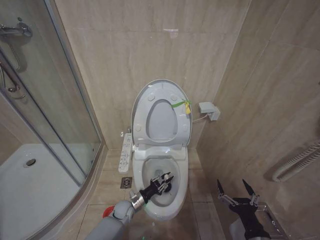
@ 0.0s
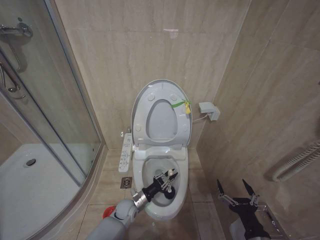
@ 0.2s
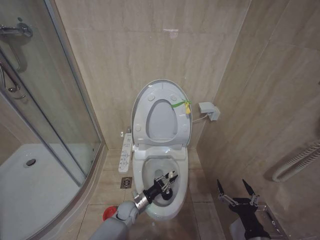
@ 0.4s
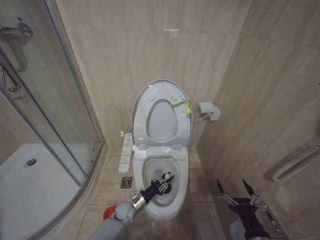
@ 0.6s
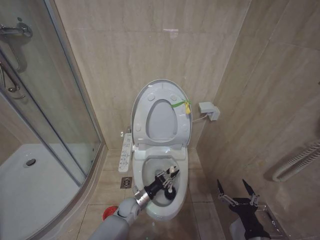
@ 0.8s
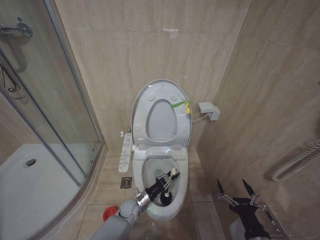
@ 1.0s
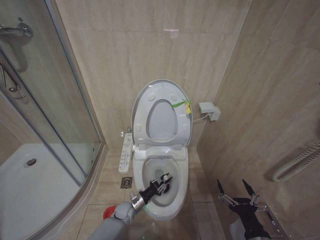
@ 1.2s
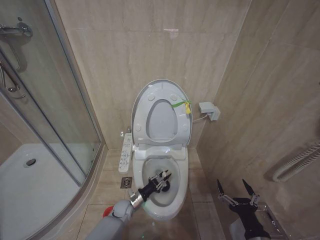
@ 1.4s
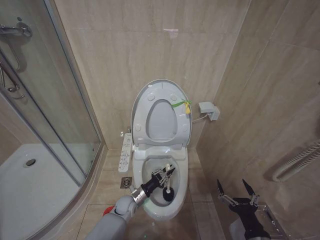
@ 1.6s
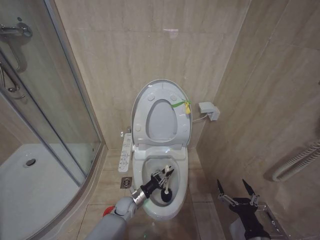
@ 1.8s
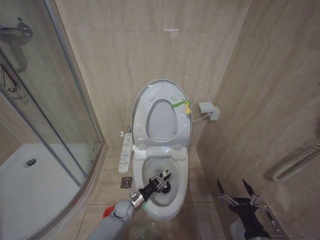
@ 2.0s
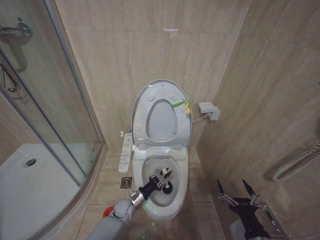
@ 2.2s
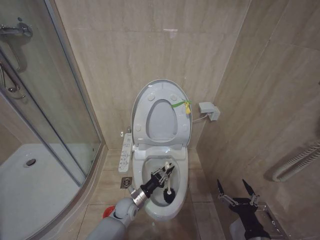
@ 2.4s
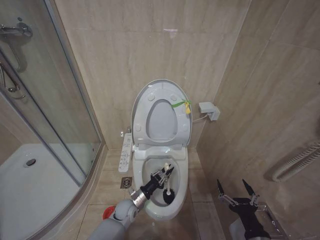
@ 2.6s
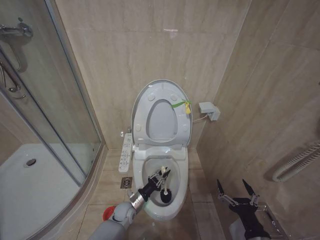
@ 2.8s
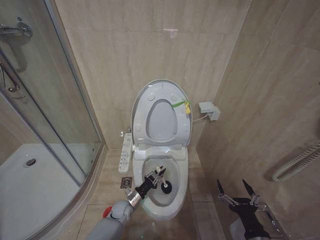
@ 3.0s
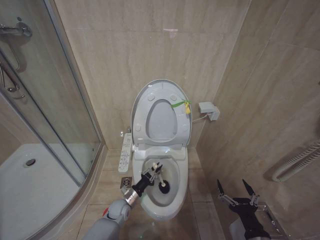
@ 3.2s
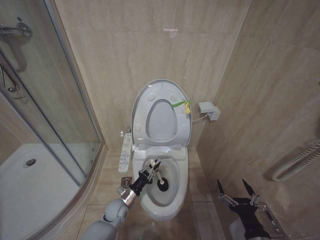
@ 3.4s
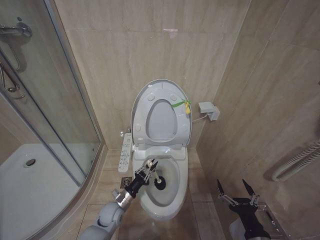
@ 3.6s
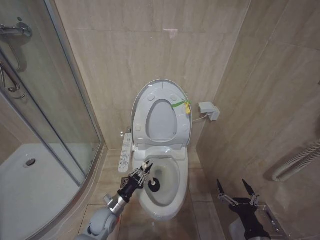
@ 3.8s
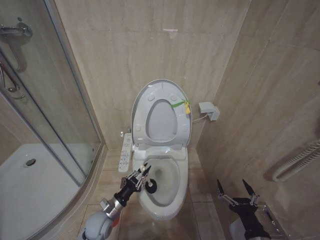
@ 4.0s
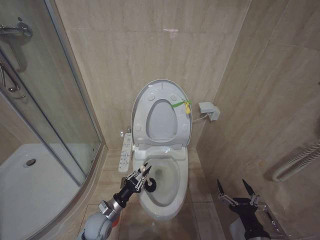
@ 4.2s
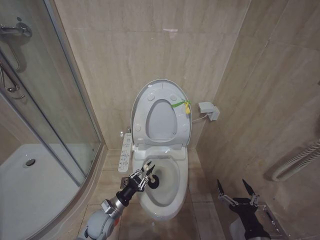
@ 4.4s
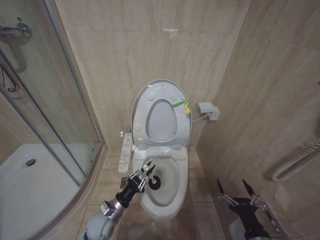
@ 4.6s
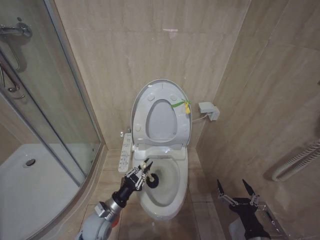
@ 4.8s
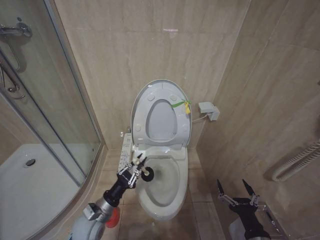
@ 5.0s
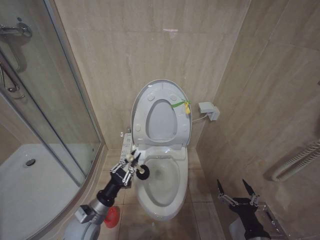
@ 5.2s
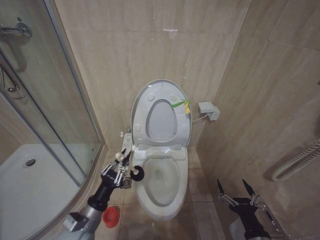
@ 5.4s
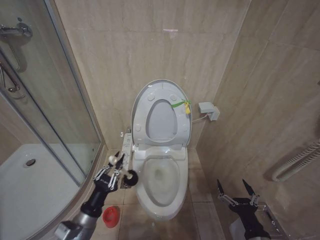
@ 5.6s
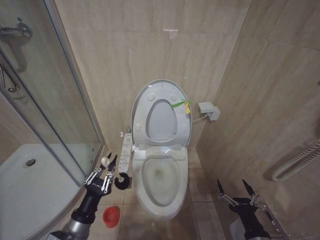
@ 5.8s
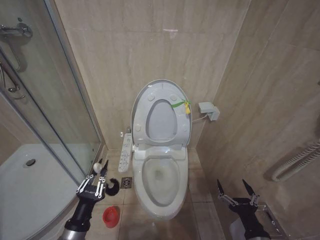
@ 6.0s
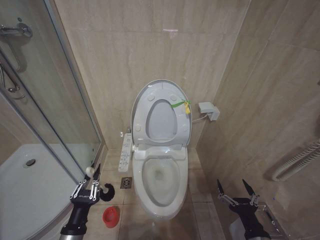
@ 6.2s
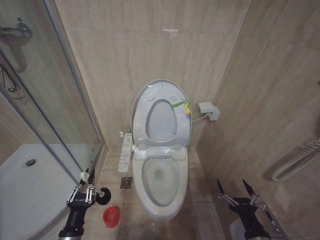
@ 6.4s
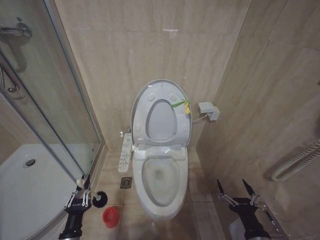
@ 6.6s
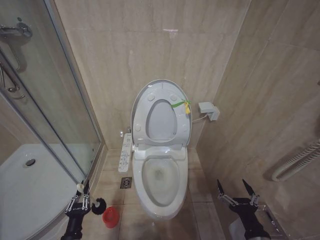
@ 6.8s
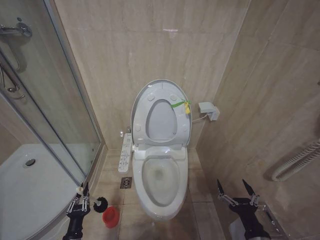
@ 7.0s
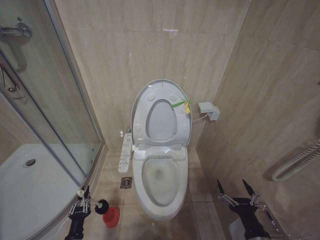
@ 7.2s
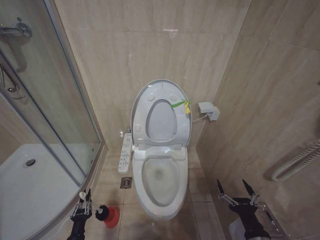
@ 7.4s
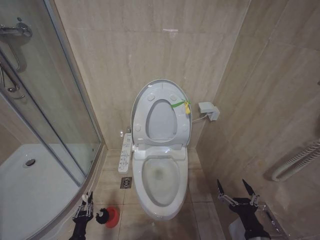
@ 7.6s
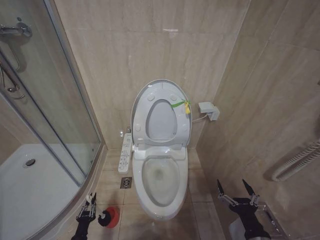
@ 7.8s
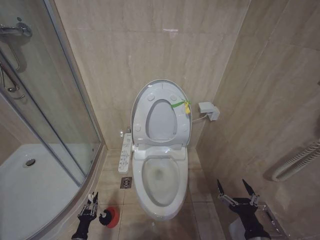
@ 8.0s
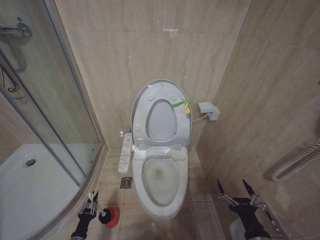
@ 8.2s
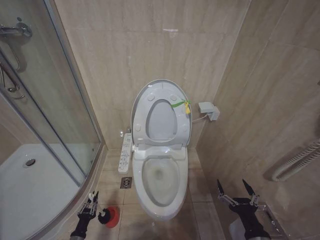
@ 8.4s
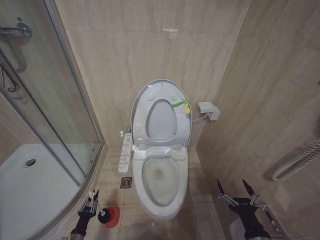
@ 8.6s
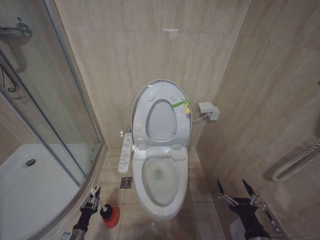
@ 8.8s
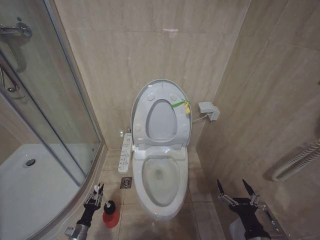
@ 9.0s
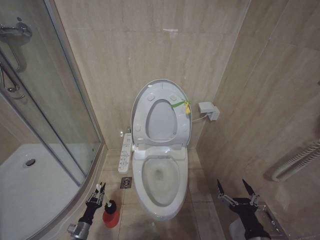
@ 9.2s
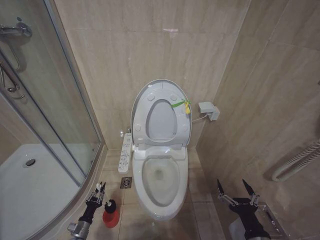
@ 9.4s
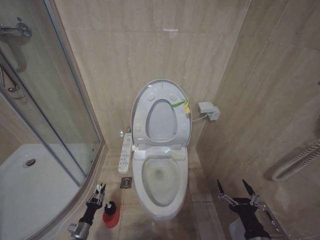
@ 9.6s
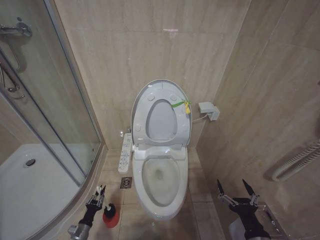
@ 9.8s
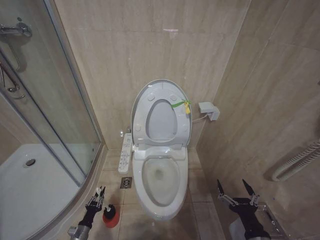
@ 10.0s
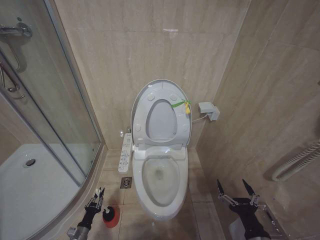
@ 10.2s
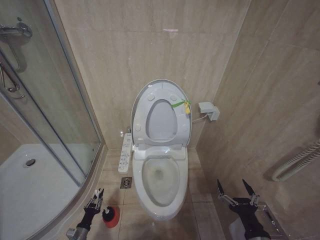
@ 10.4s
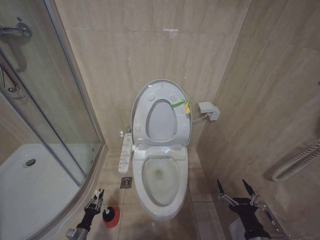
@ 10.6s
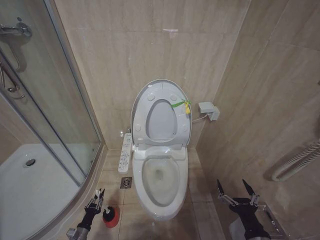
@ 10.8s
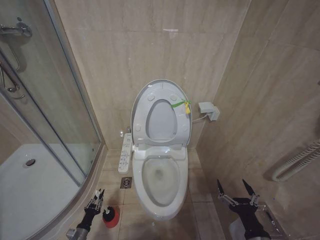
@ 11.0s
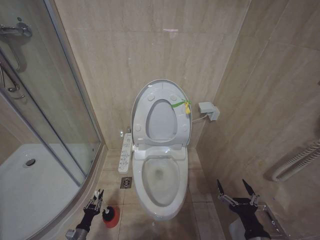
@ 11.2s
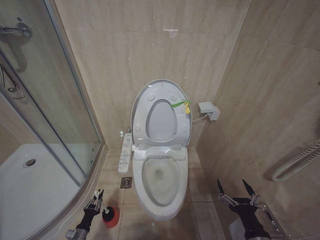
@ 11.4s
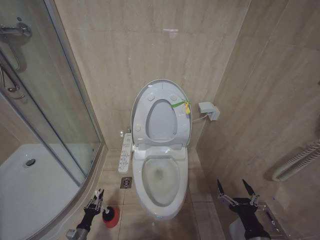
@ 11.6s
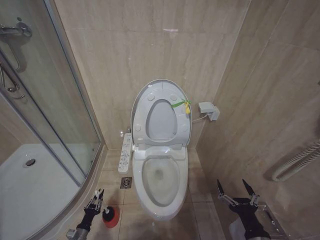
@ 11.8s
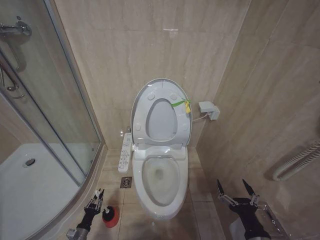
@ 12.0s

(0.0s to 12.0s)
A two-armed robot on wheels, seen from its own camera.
Task of the whole recording: Open the toilet lid, clean the toilet bowl with a toilet brush, close the toilet lid, and flush.
0.0s - 3.0s: The grippers make only small movements.
3.0s - 4.4s: The left gripper travels upward, to the left and backward by some 15 cm.
4.4s - 6.0s: The left gripper heads backward and upward, covering some 20 cm.
6.0s - 7.6s: The left gripper travels downward by roughly 25 cm.
7.6s - 9.0s: The left gripper is displaced forward by about 5 cm.
10.4s - 12.0s: The two grippers keep their place.

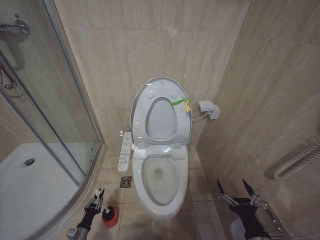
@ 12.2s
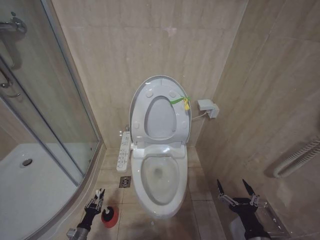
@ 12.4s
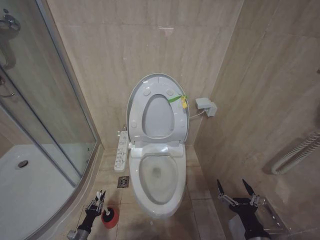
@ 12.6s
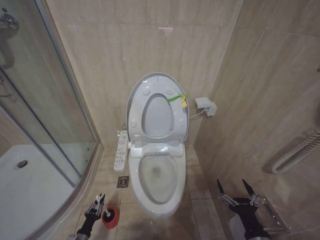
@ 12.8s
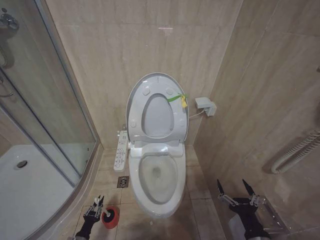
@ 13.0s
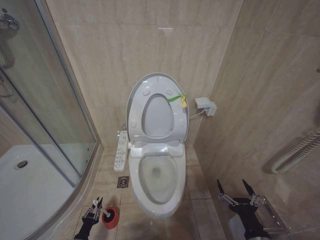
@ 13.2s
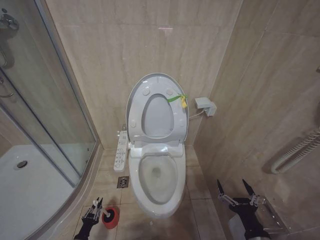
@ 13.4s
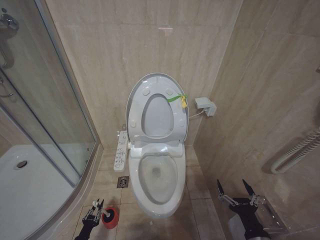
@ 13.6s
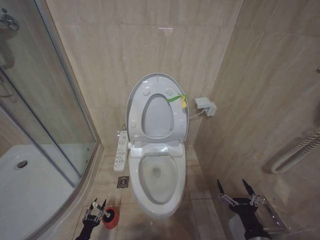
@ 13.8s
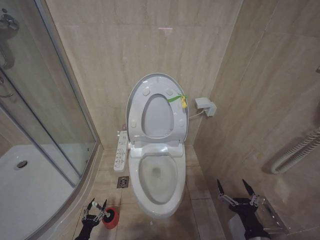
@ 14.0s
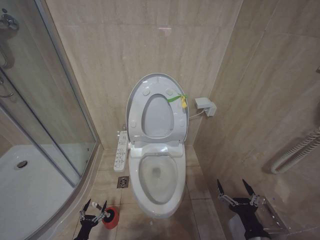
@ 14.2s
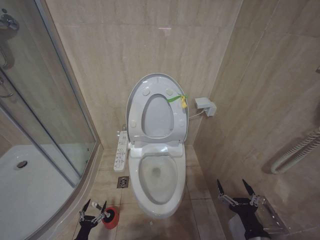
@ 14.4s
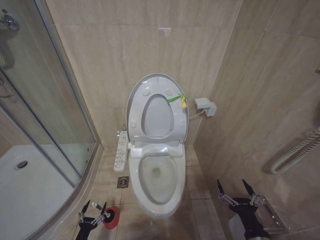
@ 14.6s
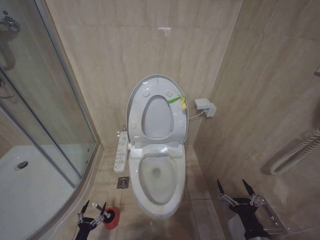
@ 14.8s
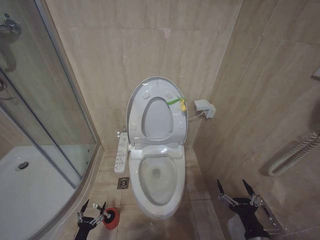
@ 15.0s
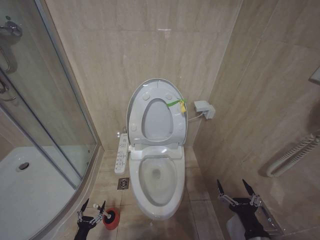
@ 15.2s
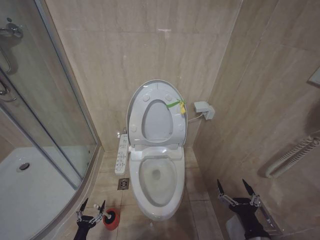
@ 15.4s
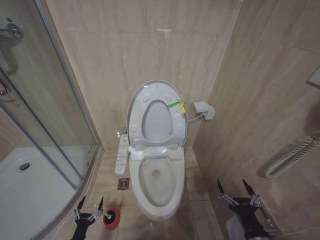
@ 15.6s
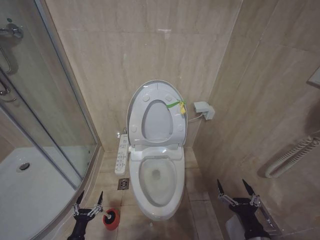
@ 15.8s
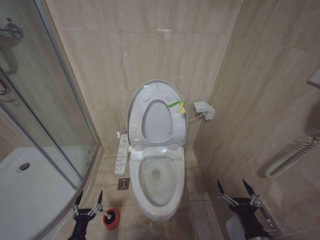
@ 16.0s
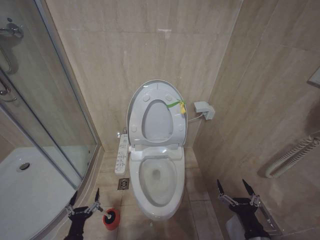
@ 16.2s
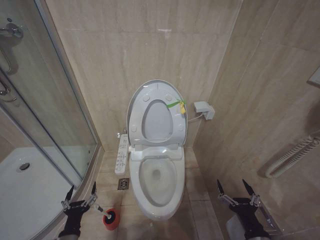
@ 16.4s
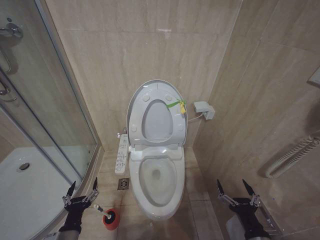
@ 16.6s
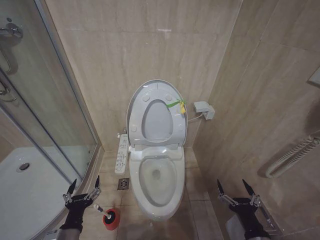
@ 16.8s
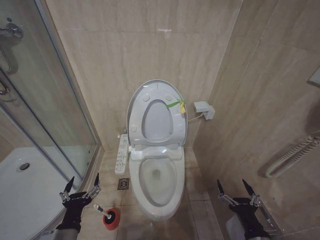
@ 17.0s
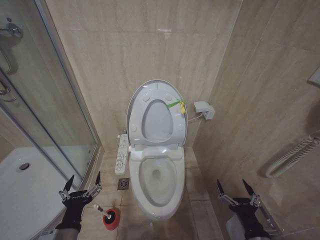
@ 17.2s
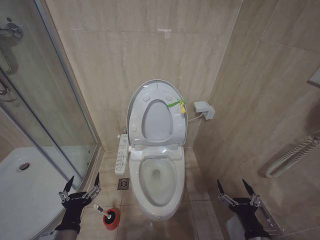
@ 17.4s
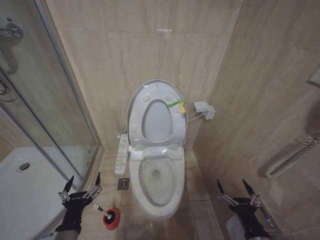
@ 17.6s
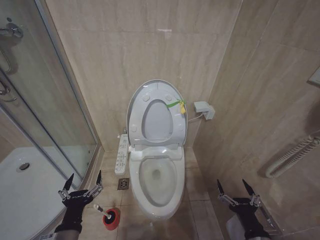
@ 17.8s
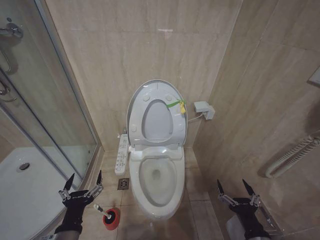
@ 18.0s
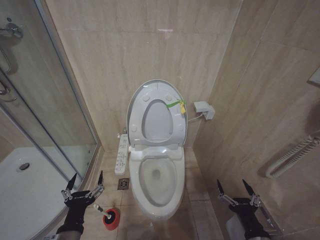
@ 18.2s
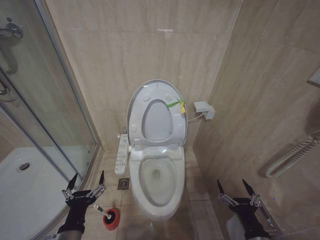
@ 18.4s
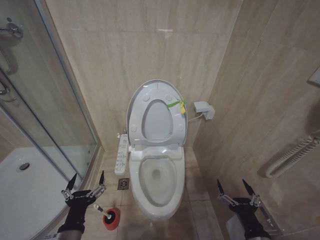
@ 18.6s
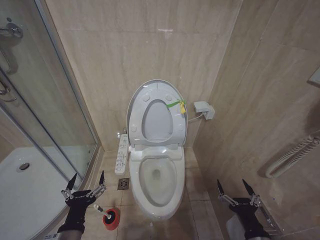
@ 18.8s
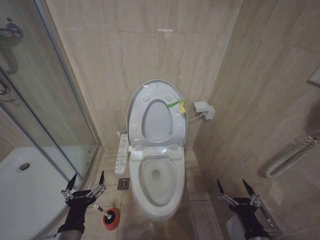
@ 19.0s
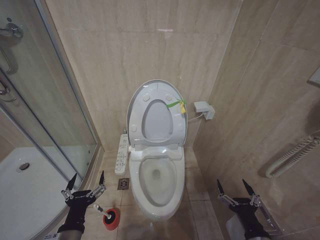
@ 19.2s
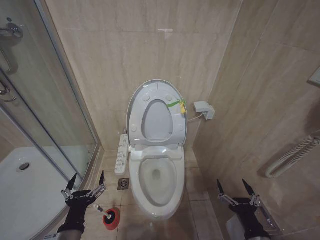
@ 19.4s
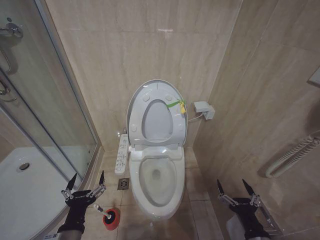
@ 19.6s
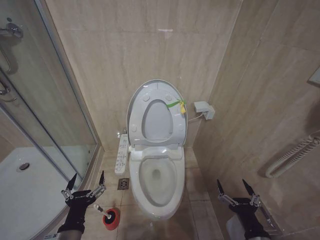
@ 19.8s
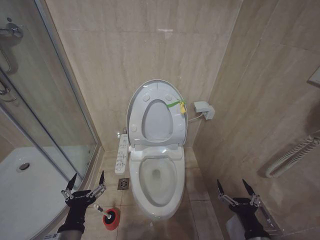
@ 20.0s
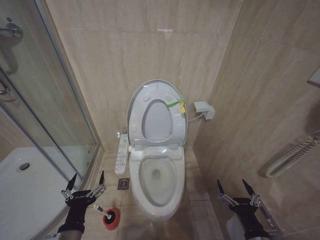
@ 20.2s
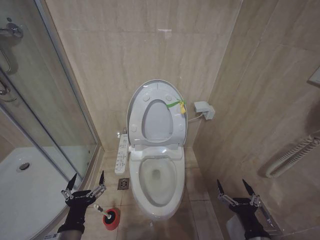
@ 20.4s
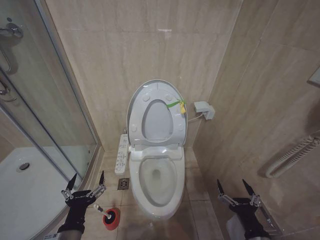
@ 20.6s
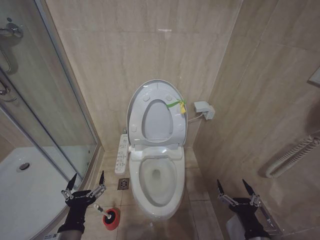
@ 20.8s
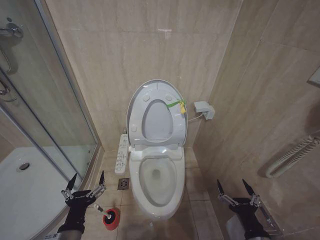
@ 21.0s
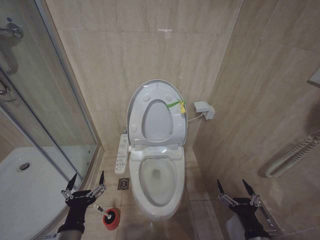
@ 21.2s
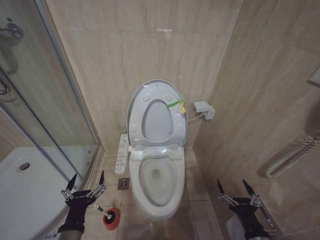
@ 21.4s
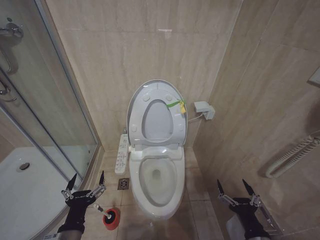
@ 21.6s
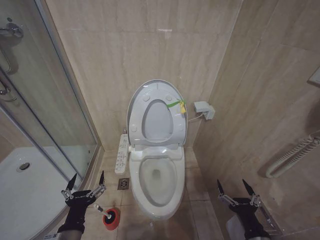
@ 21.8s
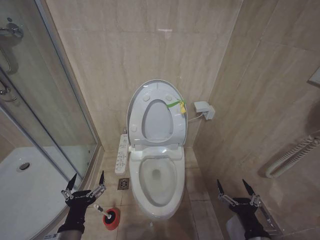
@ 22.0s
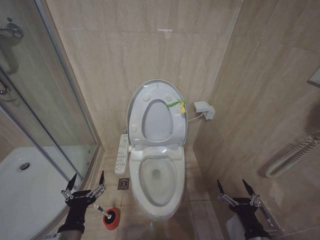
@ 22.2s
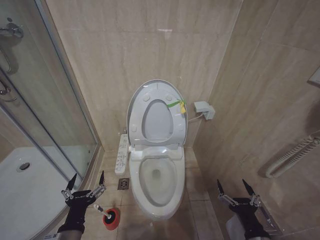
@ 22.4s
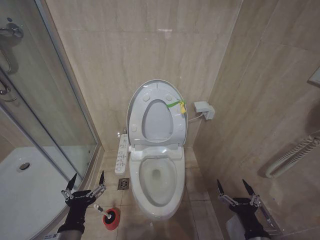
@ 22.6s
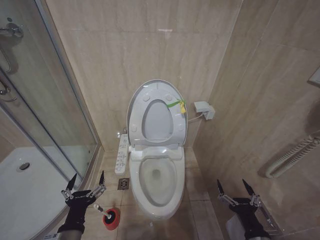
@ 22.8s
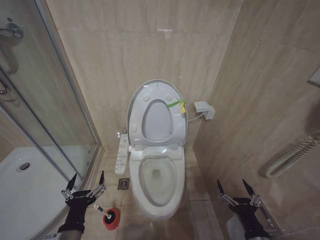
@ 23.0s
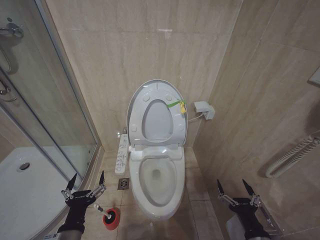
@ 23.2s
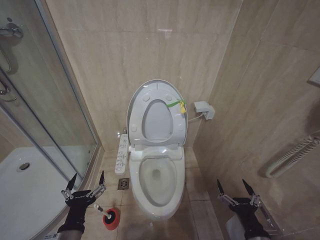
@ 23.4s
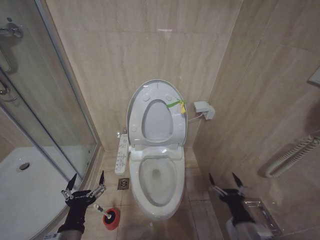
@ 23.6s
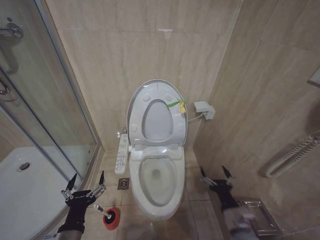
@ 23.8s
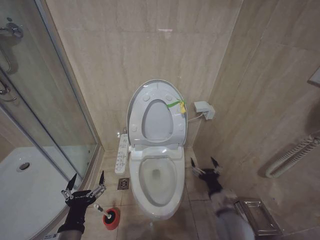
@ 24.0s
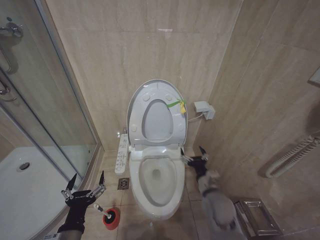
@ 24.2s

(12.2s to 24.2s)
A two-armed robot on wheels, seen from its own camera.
Task of the whole recording: Open the toilet lid, clean the toilet bowl with a toilet brush, close the toilet lid, and flush.
12.2s - 13.8s: The left gripper moves some 5 cm.
13.8s - 15.2s: The left gripper opens up.
15.2s - 16.6s: The left gripper travels upward by some 25 cm.
16.6s - 18.2s: The left gripper moves upward, approximately 10 cm.
18.2s - 22.6s: Both grippers stay put.
22.6s - 24.2s: The right gripper shifts some 20 cm forward and to the left.
